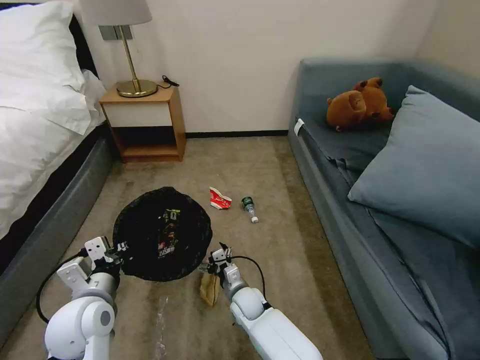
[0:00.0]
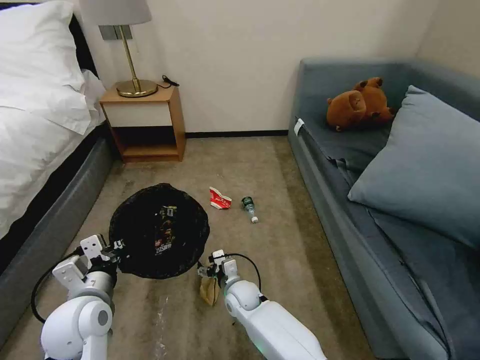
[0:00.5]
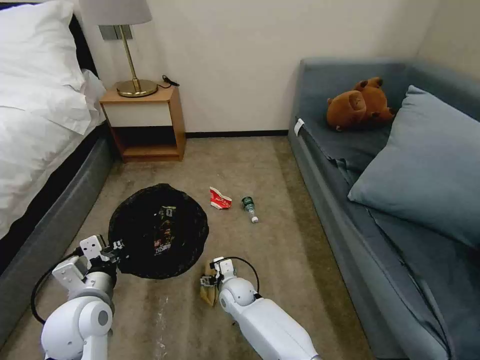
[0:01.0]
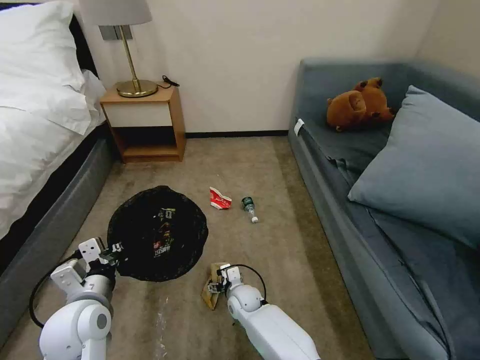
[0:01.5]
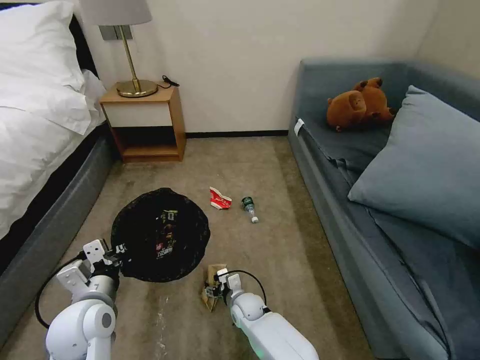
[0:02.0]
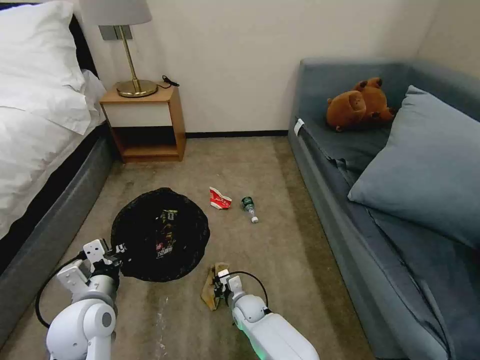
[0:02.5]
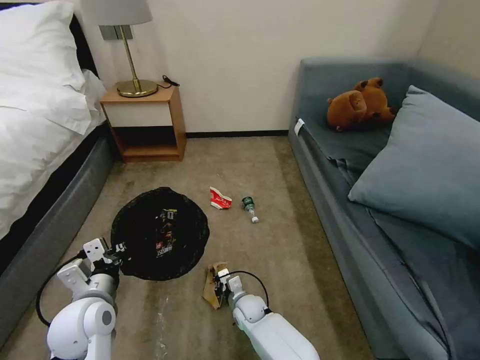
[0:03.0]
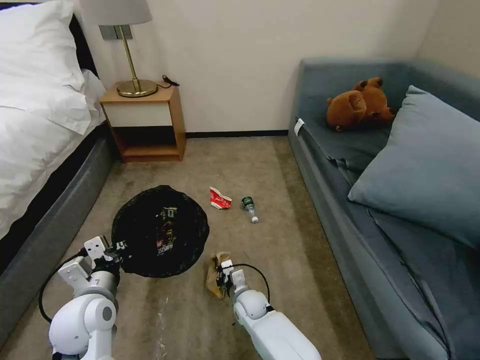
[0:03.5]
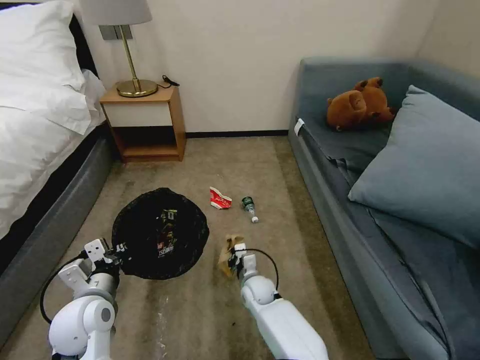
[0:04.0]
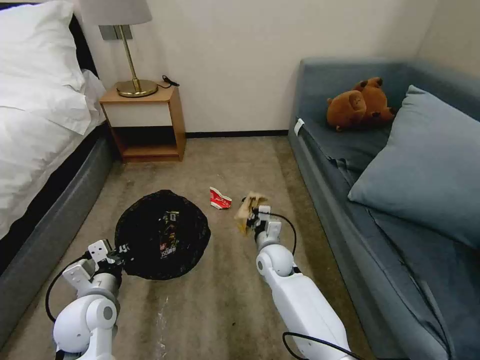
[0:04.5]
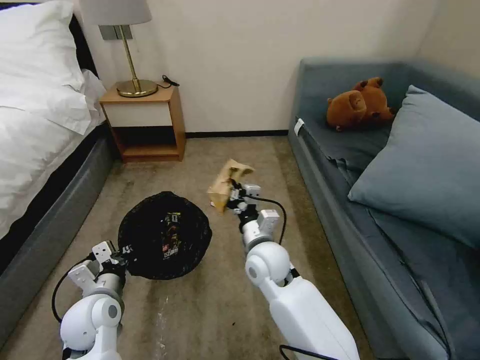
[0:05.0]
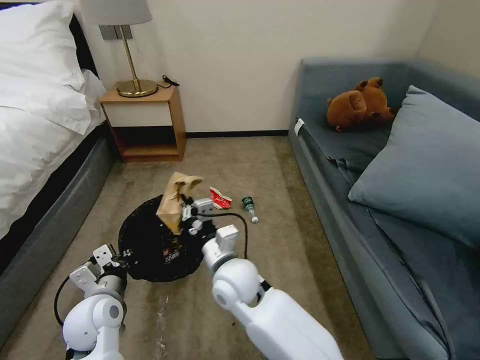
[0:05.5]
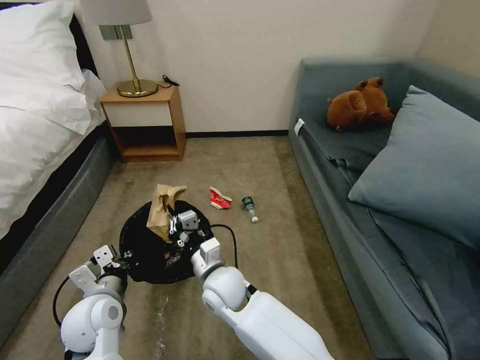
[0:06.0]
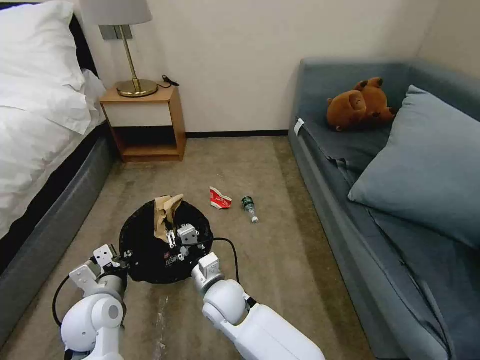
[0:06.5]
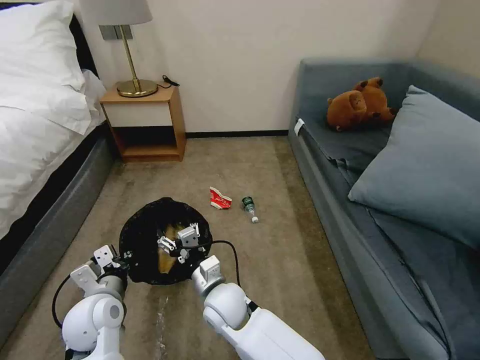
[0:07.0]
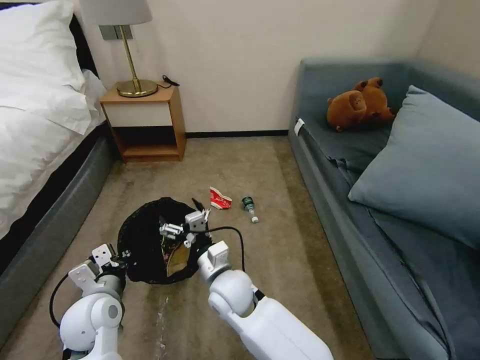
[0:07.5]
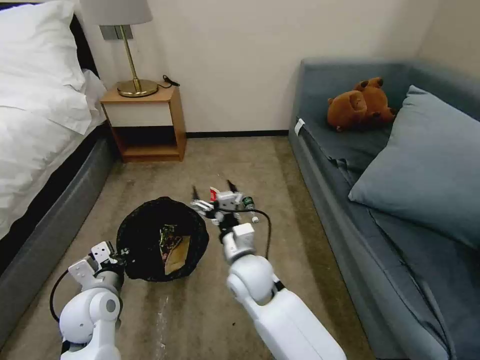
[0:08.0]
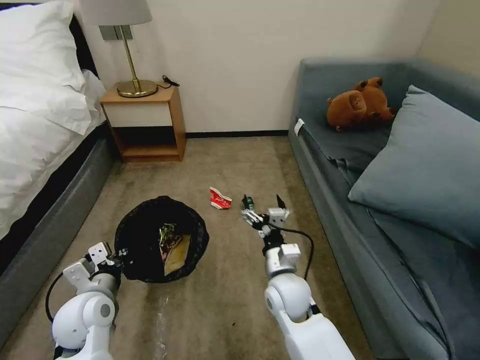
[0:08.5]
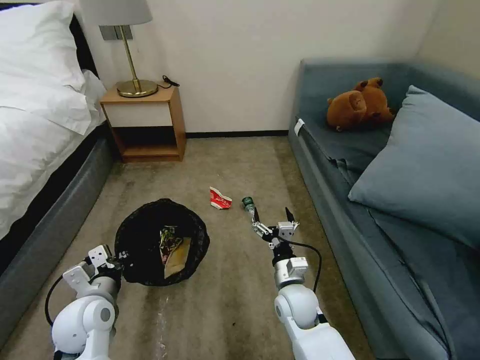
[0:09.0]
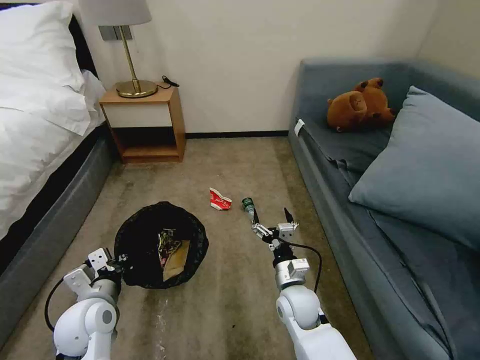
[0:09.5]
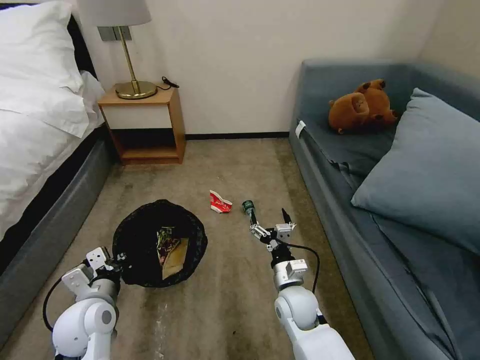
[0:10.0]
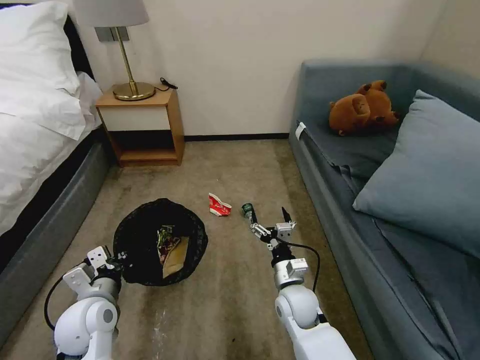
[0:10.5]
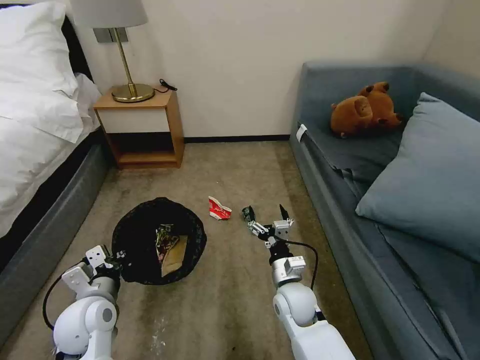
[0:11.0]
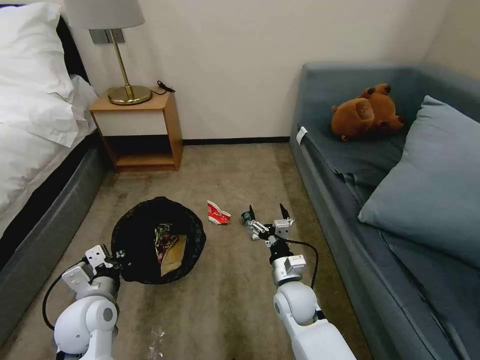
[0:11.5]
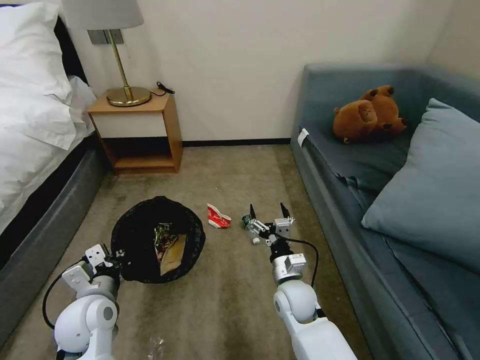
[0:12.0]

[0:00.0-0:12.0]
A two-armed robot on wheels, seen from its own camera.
Task of the whole recording: Pick up the trash bin, then pick up the garbage on the floor and place it into the trash bin.
0:02.0 to 0:04.0: The right gripper moves roughly 5 cm, and closes its fingers.
0:04.0 to 0:06.0: The right gripper heads upward and to the left, covering about 20 cm.
0:06.0 to 0:08.0: The right gripper is displaced to the right by about 5 cm, and opens.
0:08.0 to 0:10.0: The right gripper moves to the right and downward, about 15 cm.

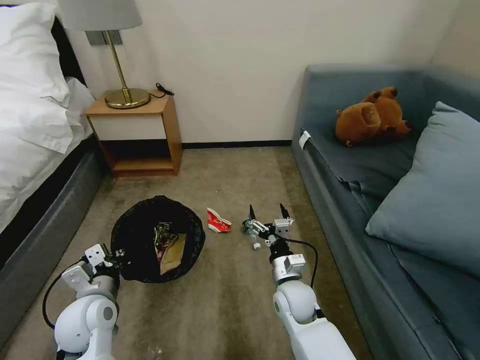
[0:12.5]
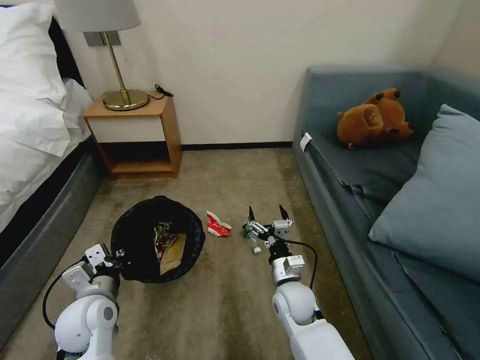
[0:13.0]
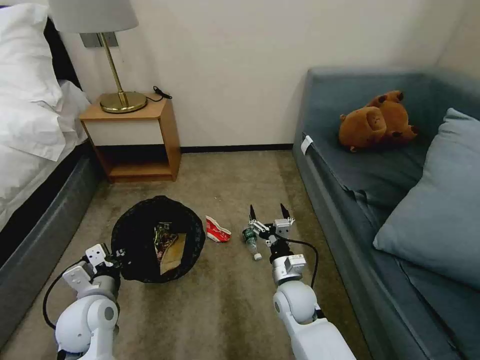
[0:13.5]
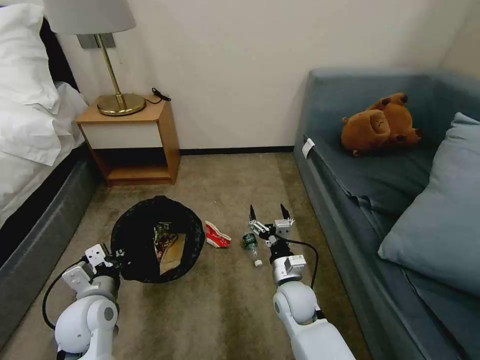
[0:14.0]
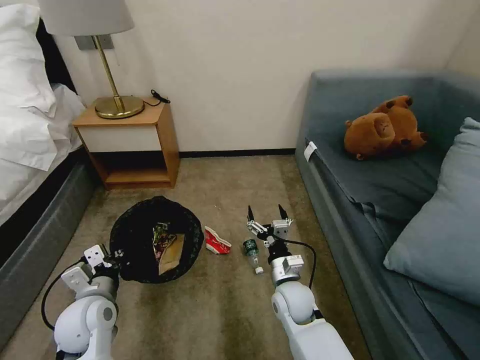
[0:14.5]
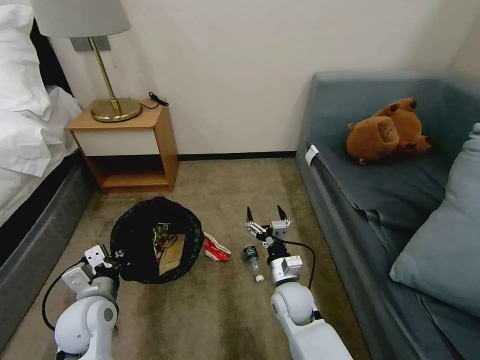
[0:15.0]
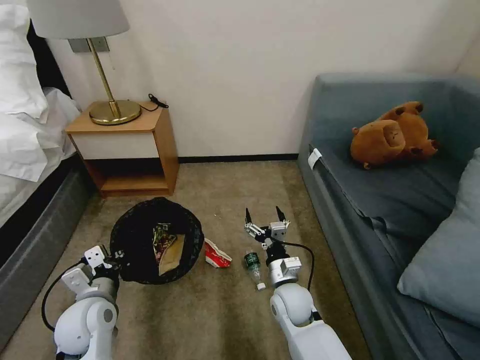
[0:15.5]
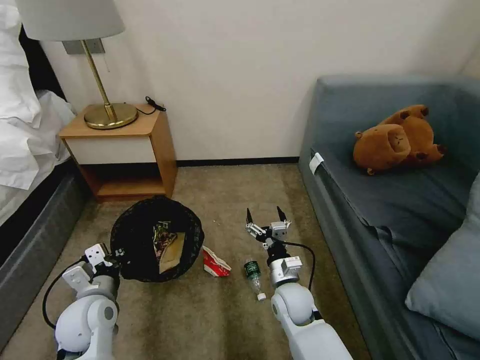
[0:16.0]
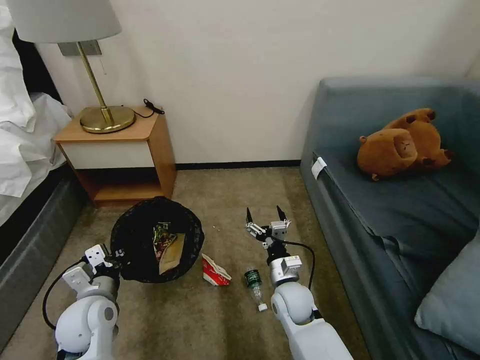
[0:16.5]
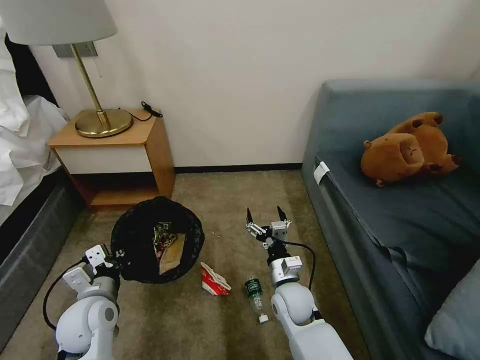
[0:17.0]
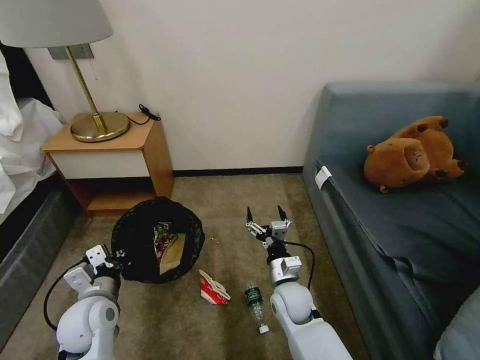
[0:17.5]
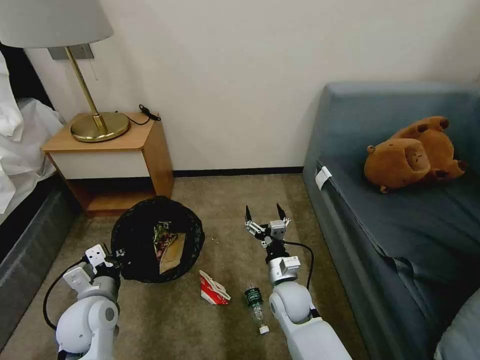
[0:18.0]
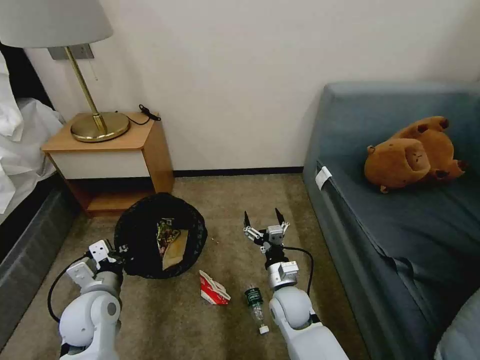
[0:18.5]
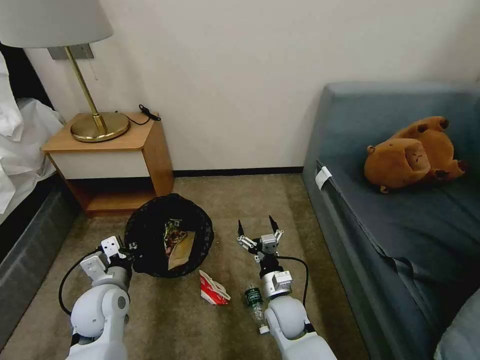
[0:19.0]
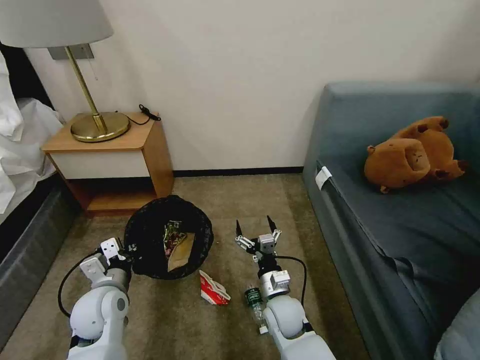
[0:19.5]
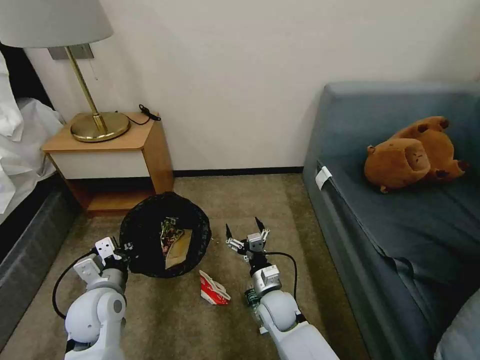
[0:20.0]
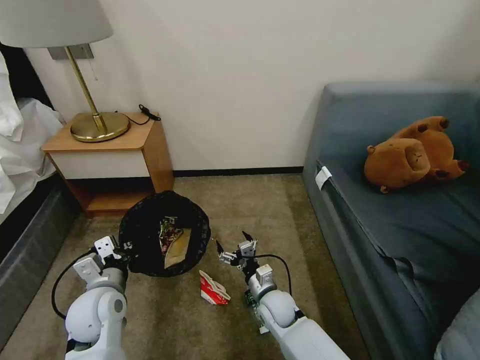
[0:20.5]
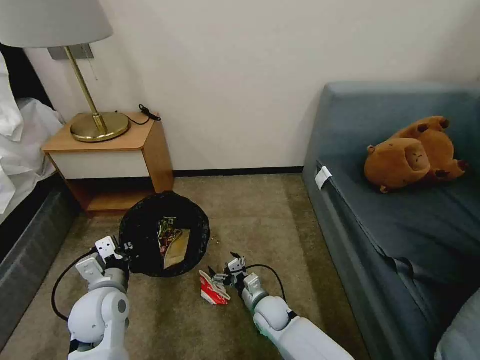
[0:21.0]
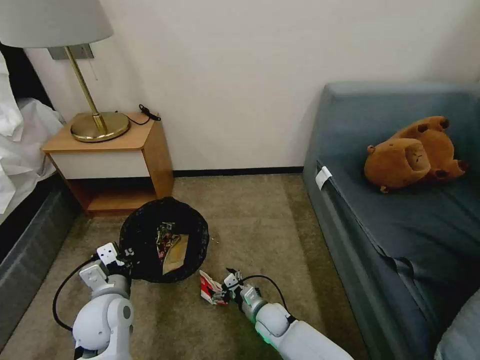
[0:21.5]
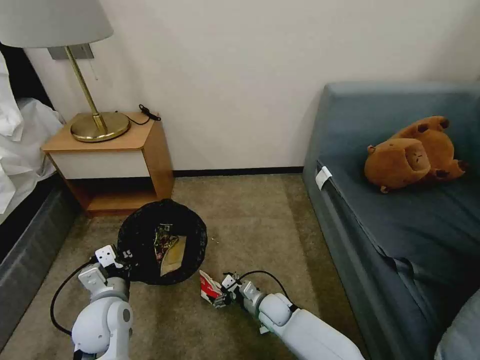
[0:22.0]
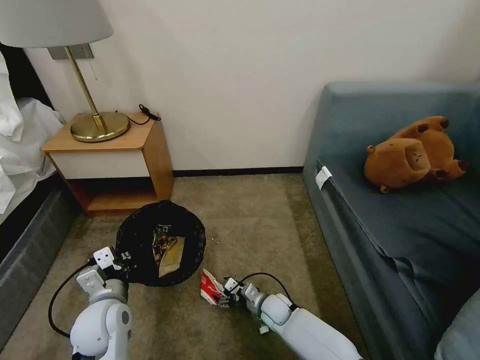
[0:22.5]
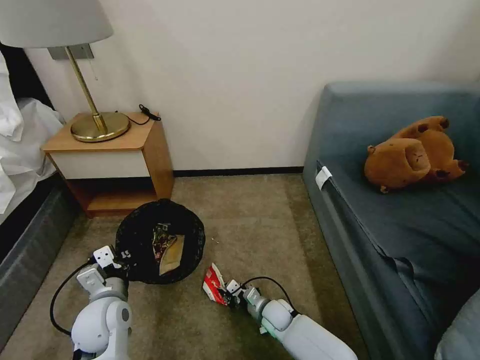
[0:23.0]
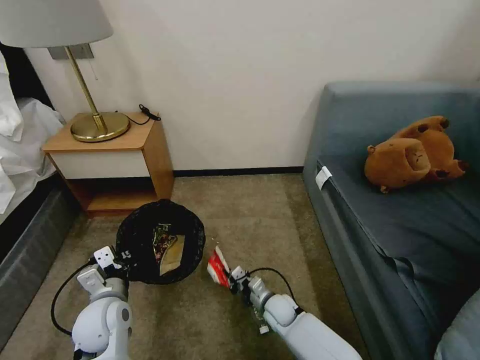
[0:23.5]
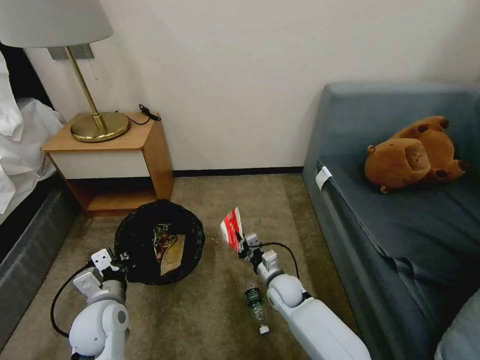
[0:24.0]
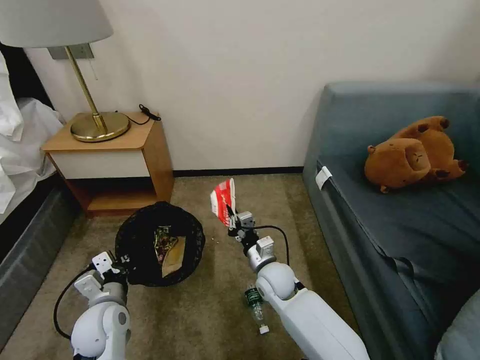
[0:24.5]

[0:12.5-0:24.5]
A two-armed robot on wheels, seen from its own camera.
Task of the whole recording: Pick up the trash bin, then pick up the garbage on the floor and place it into the trash bin.
0:18.5 to 0:20.5: The right gripper goes roughly 5 cm downward.
0:20.5 to 0:22.5: The right gripper shifts approximately 10 cm downward.
0:22.5 to 0:24.5: The right gripper shifts roughly 15 cm upward, and closes up.

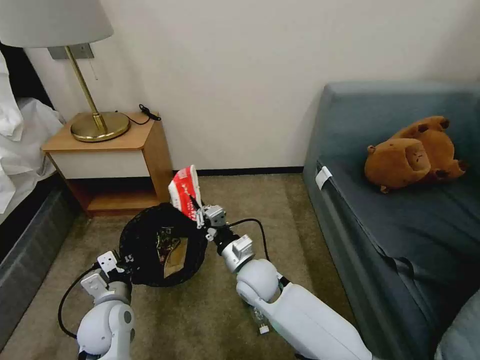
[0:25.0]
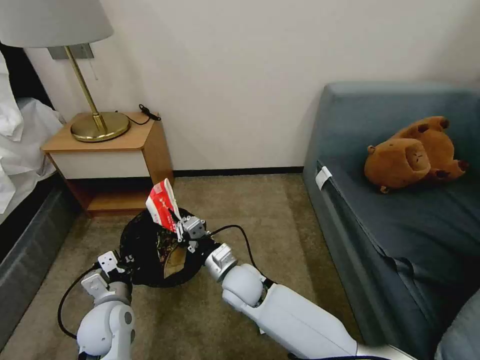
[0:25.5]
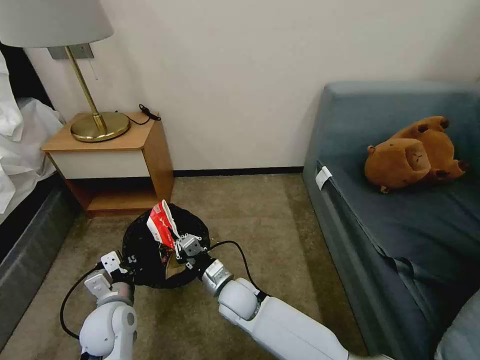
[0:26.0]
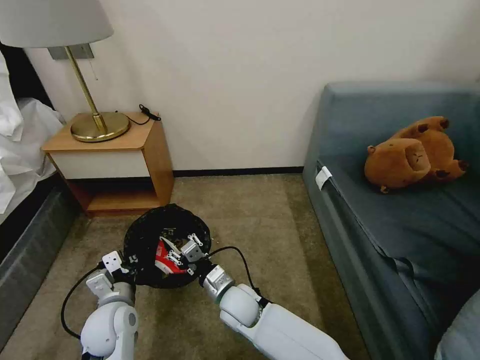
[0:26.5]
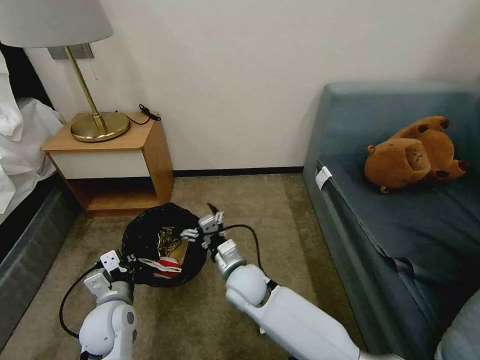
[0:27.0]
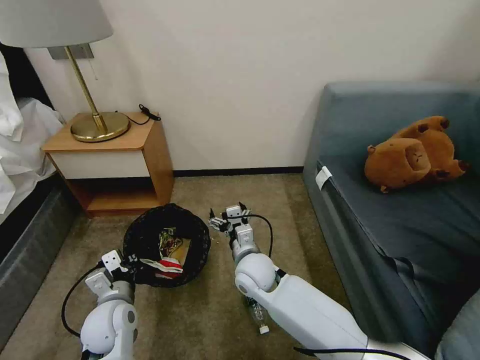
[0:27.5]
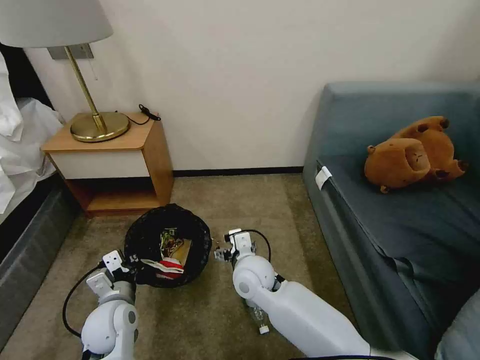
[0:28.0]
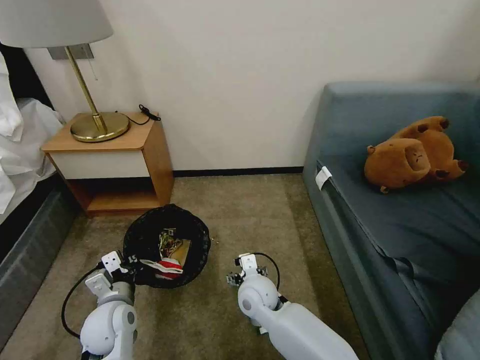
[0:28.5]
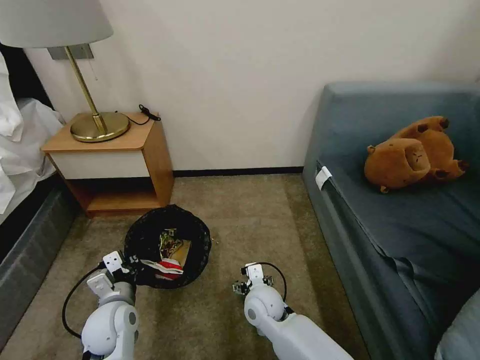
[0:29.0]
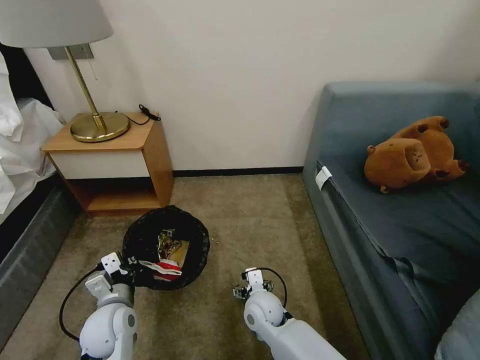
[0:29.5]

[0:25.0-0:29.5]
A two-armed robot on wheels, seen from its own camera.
Task of the whole recording: Pick up the trash bin, then pick up the garbage on the floor and place it into the trash bin.
0:25.0 to 0:27.0: The right gripper opens its fingers.
0:27.0 to 0:29.5: The right gripper goes approximately 10 cm downward.
